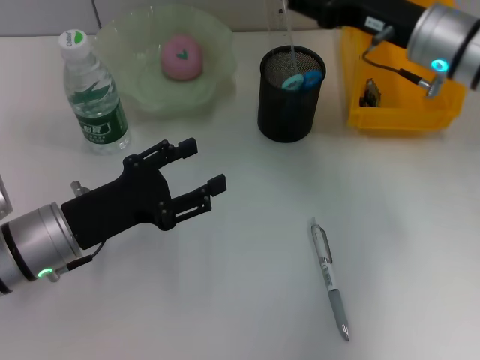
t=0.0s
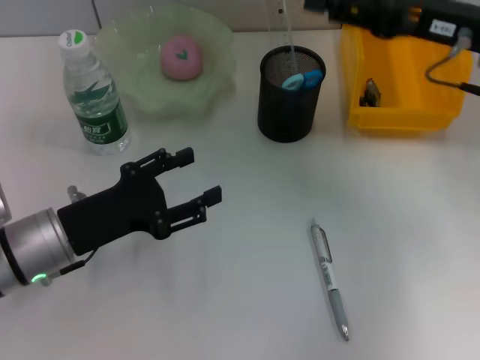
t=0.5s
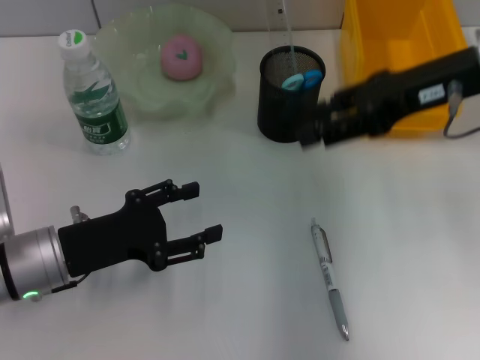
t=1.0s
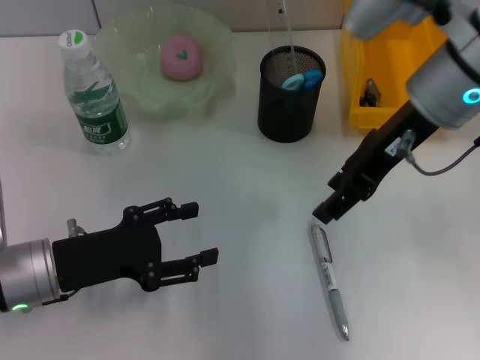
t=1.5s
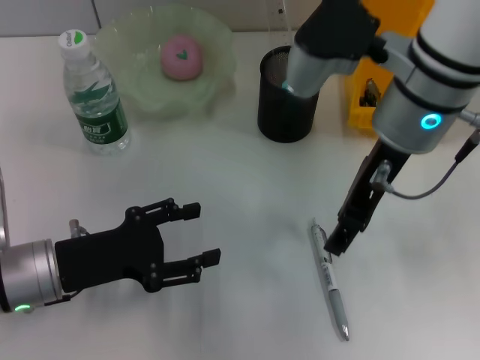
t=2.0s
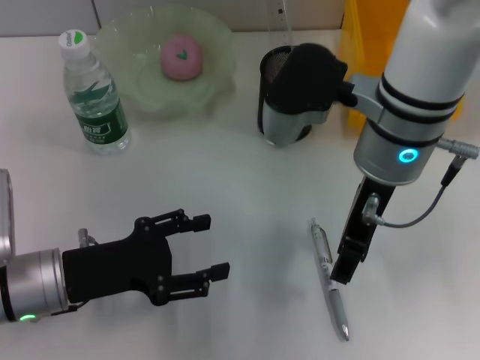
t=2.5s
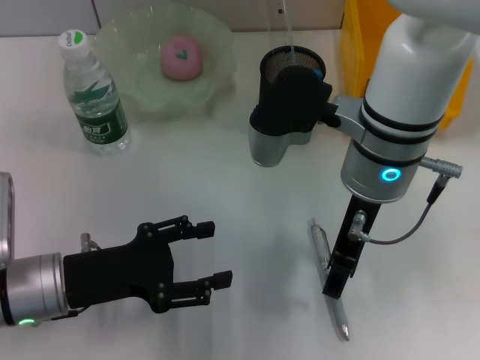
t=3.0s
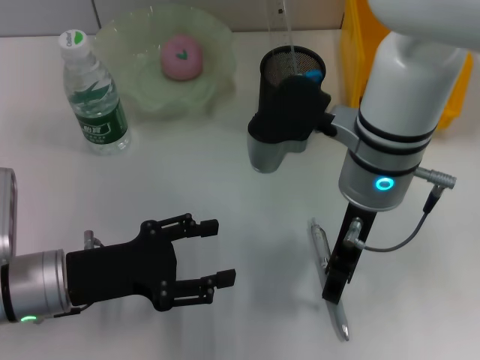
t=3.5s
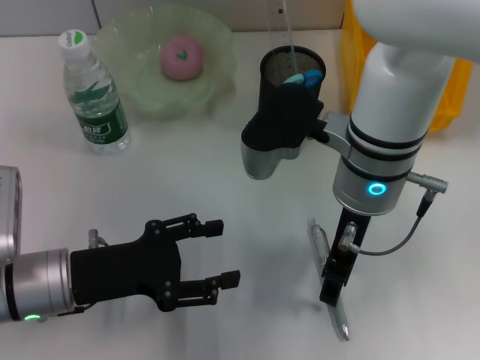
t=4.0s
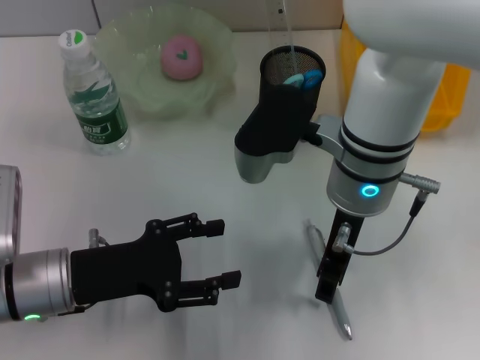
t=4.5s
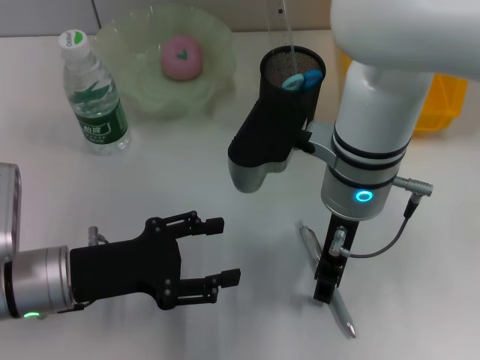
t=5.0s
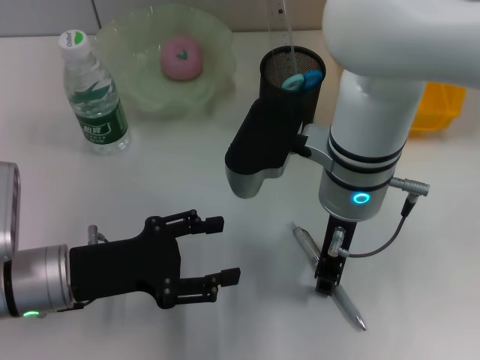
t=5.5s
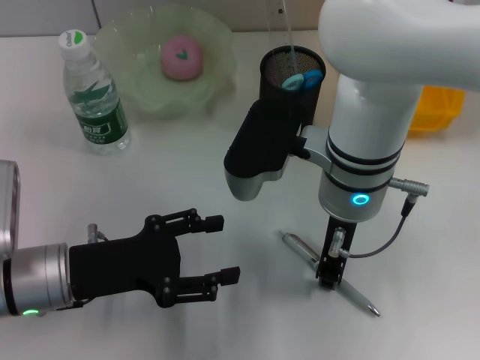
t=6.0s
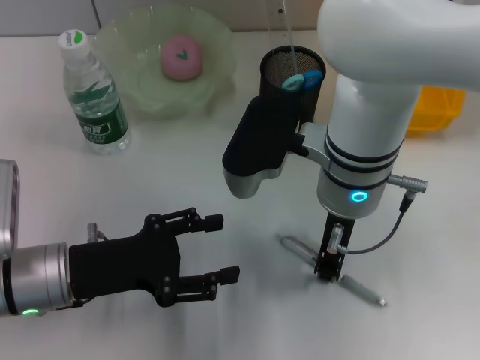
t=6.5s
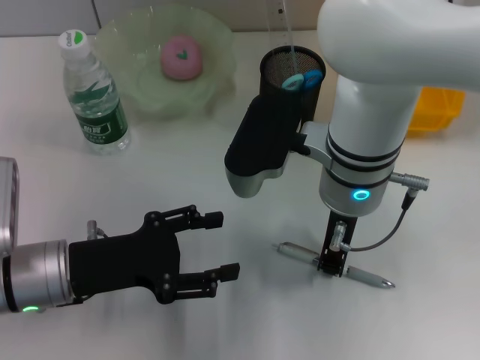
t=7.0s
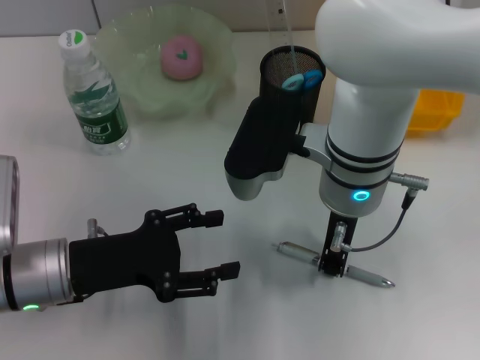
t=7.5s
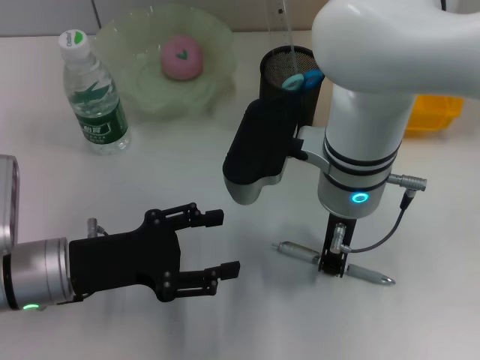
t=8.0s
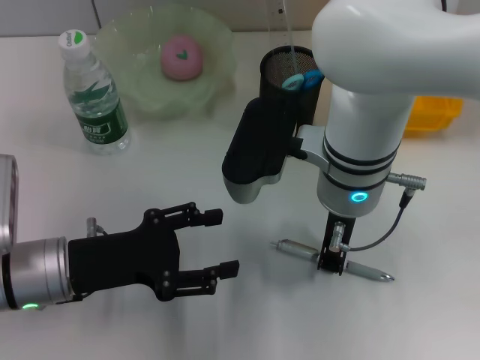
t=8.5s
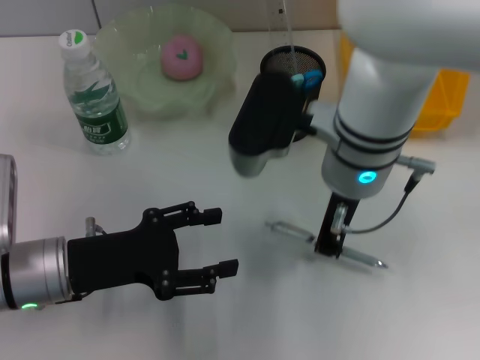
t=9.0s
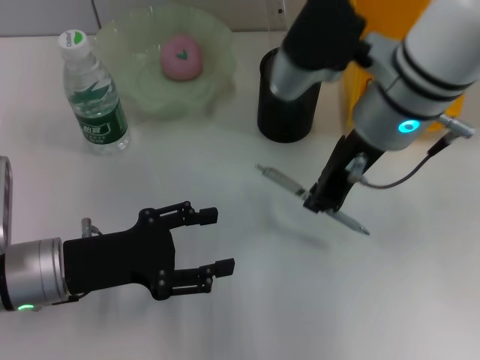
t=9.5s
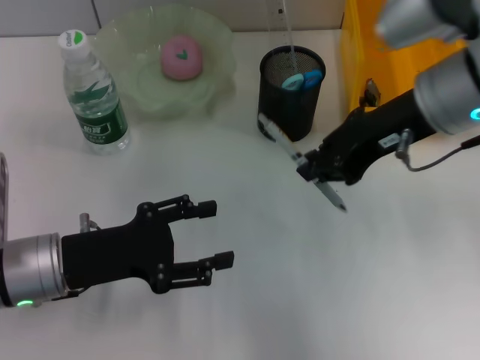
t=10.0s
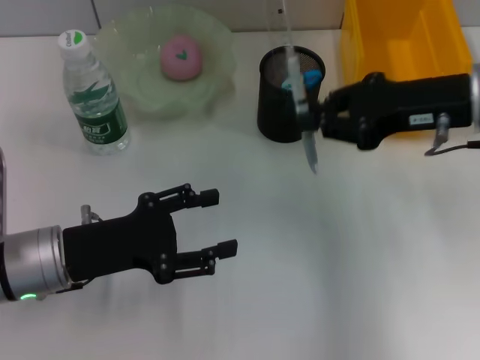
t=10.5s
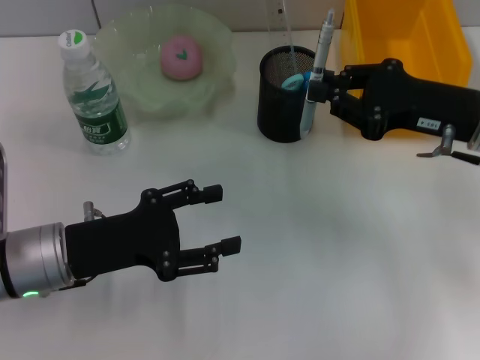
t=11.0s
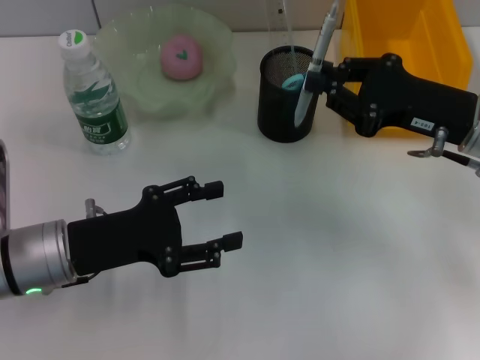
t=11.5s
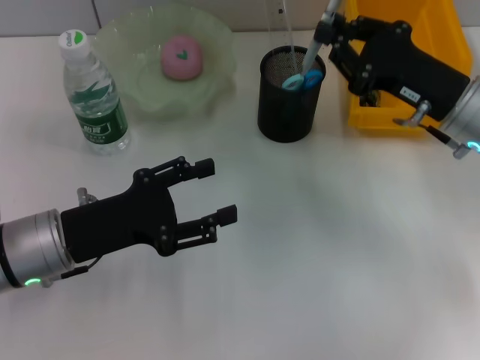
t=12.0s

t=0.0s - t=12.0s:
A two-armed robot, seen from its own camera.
Step, t=0.5s - t=6.5s: Grab the gray spring-action pen with the right hand.
t=0.0s - t=2.0s: The right gripper heads to the left, backward and upward, covering some 10 cm.
t=2.0s - t=4.0s: The right gripper heads downward, covering roughly 5 cm.
t=6.0s - t=8.0s: Neither gripper changes place.
t=8.0s - t=10.0s: The right gripper moves to the right and upward, some 15 cm.
t=10.0s - t=12.0s: The right gripper is displaced downward and to the right by some 10 cm.

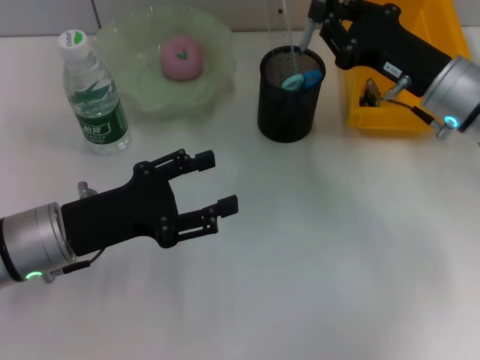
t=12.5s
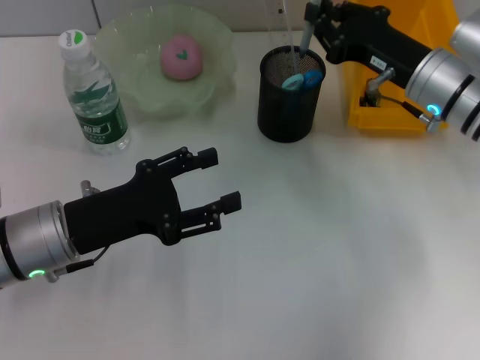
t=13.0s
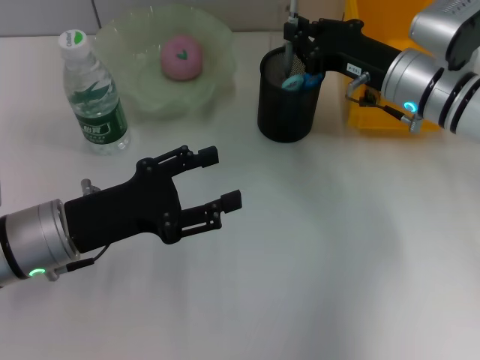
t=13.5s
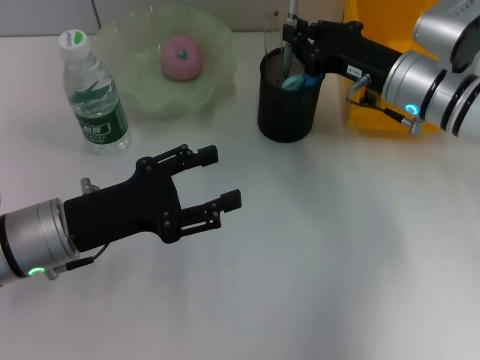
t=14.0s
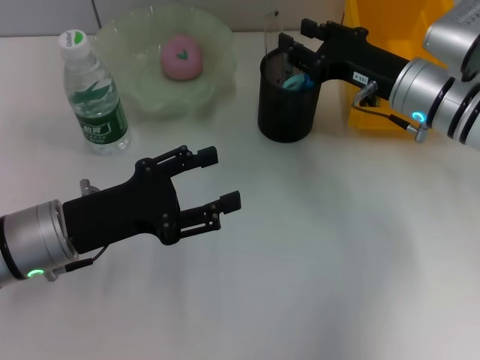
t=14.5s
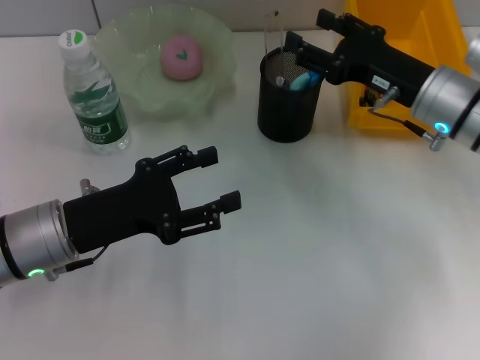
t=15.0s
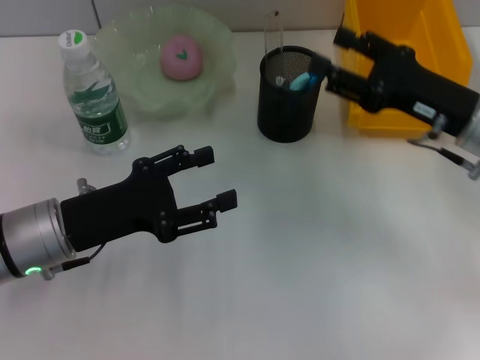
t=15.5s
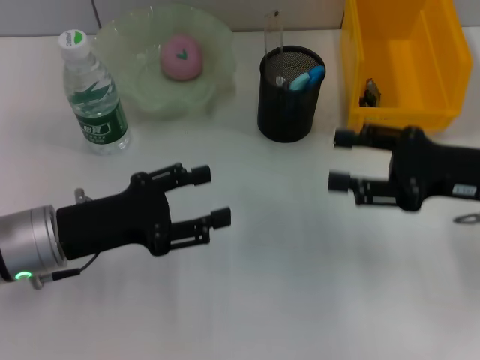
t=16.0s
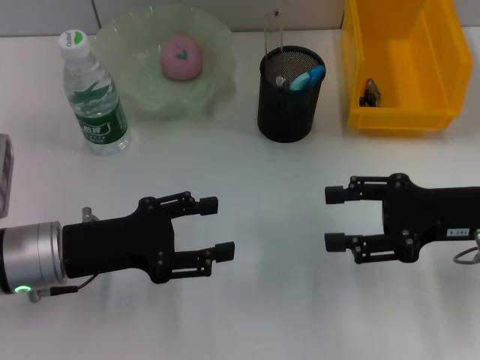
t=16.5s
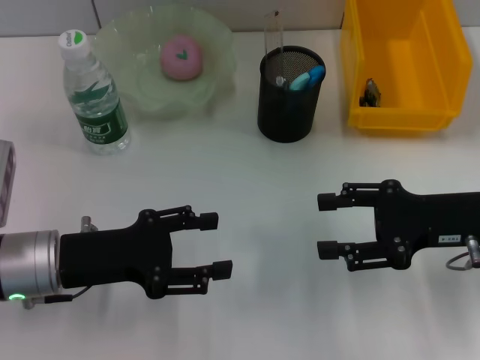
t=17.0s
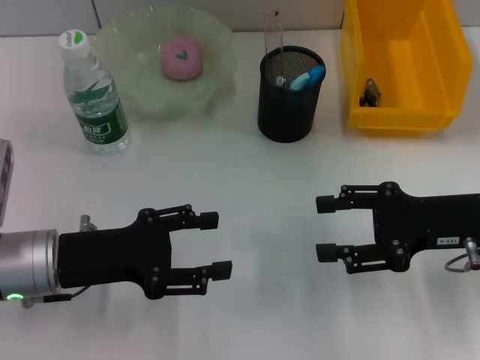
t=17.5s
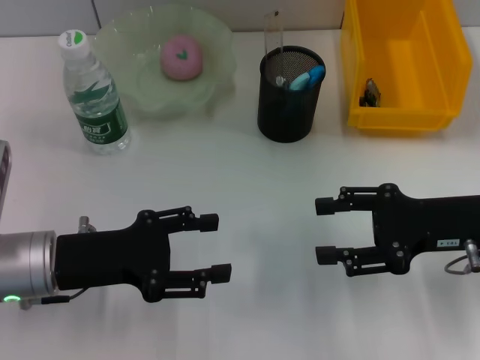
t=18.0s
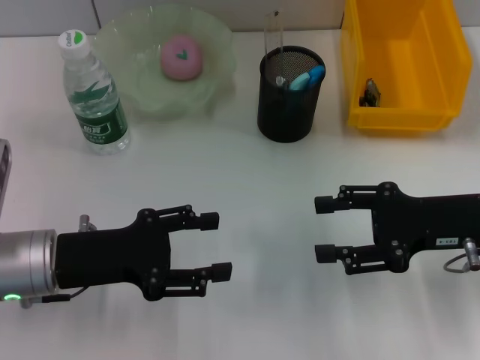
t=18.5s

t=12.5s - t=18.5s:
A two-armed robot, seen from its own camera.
Step, t=12.5s - t=15.0s: Place the gray spring-action pen into the pen holder with the right hand.
t=12.5s - t=14.5s: The grippers stay close to where they were, moving slightly.
t=14.5s - t=16.5s: The right gripper moves backward and to the right, roughly 15 cm, and opens up.
t=16.5s - t=18.5s: Both grippers stay put.

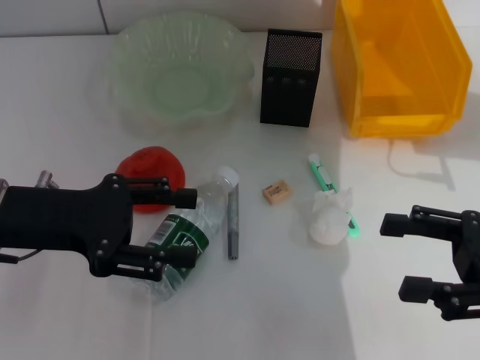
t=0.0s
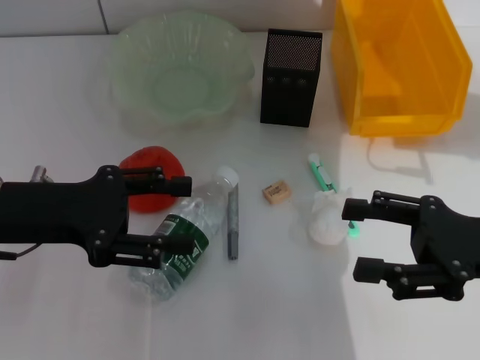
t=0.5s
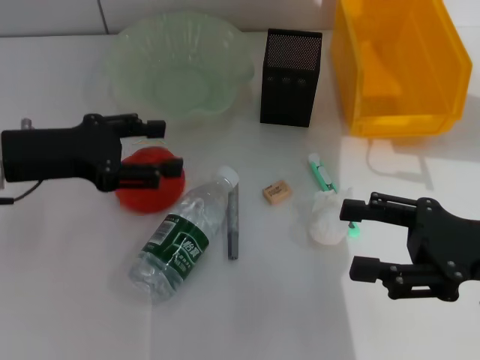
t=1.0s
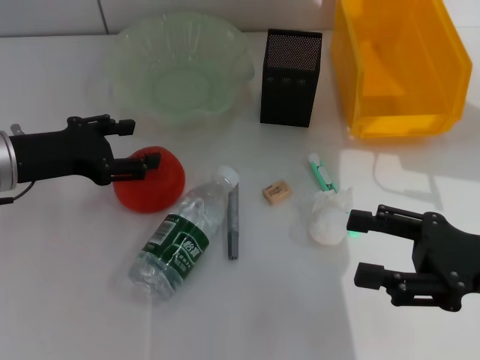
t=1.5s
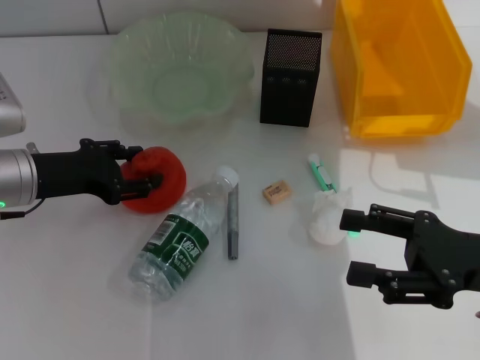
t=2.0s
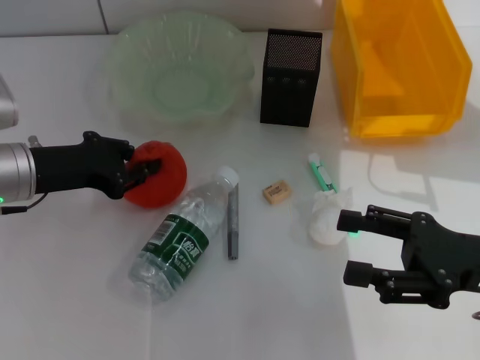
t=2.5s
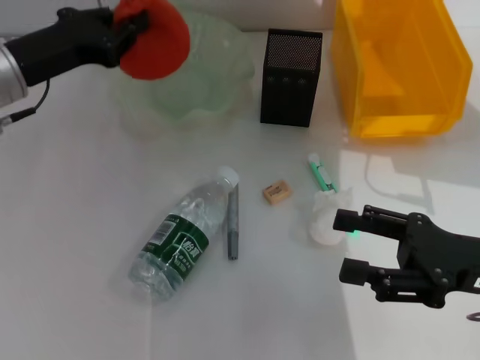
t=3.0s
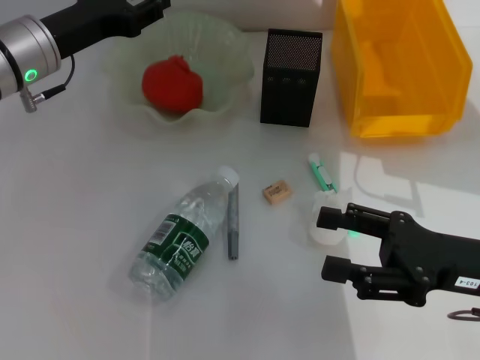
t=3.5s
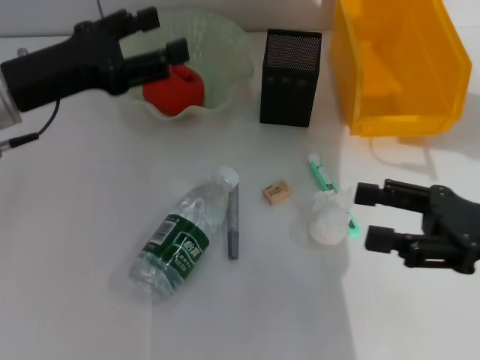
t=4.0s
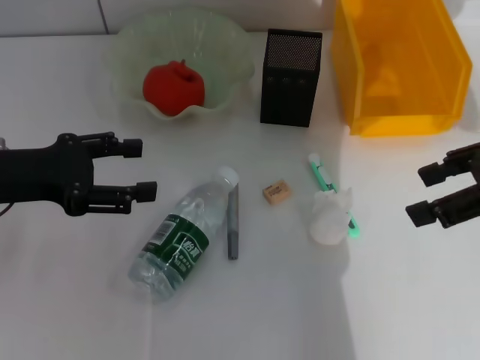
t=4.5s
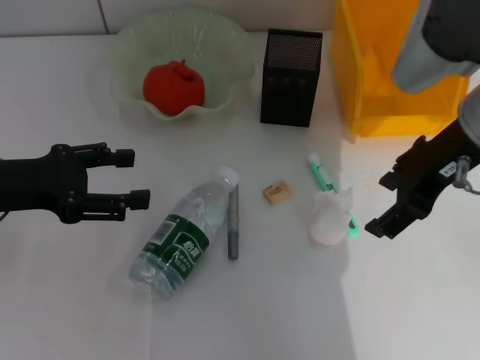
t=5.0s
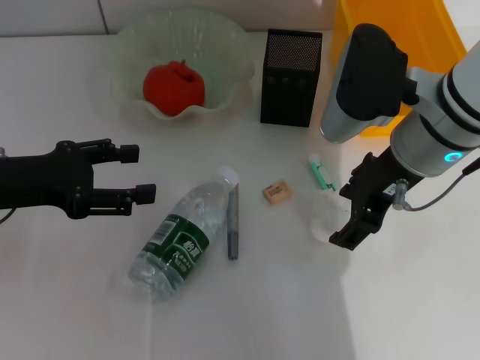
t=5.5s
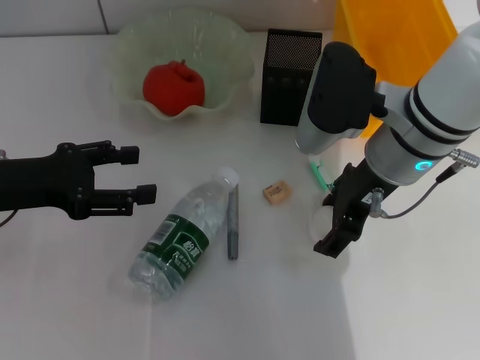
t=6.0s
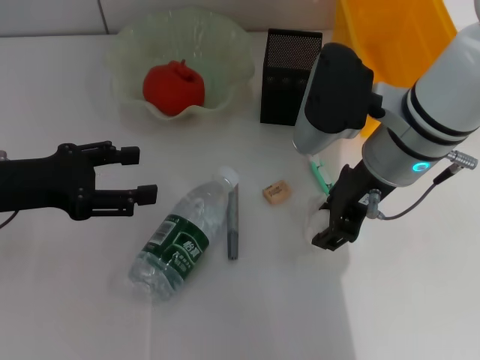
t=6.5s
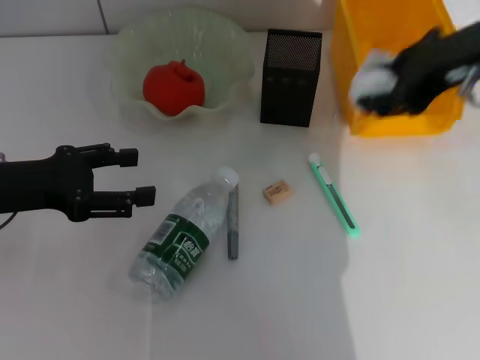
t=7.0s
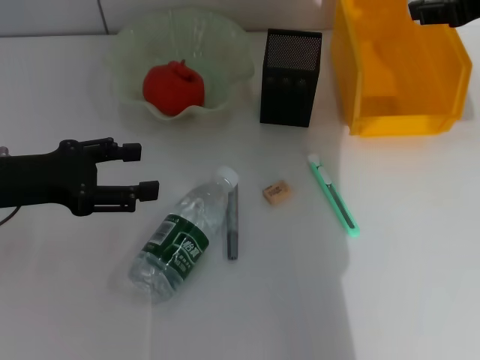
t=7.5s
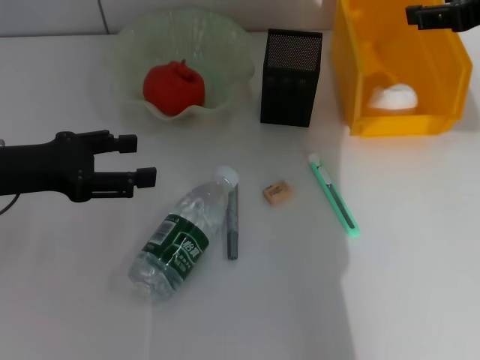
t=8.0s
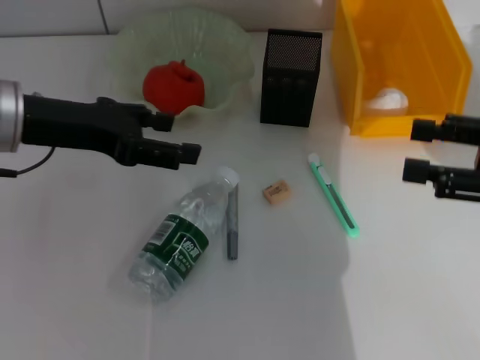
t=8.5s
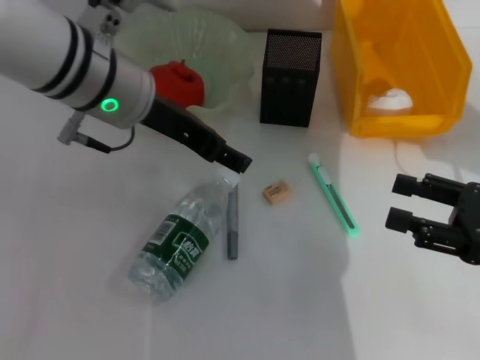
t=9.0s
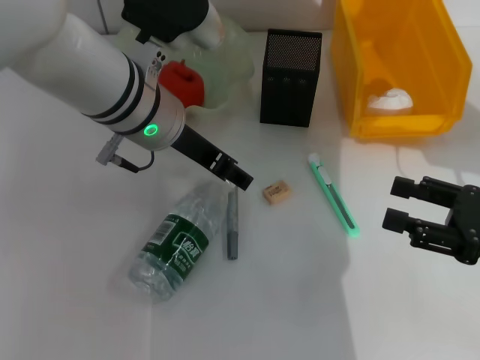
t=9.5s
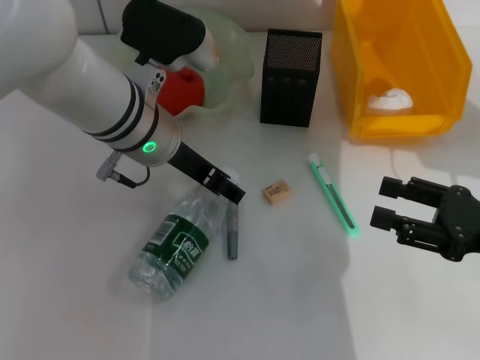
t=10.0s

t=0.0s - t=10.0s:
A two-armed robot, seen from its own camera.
Step, t=0.0s - t=2.0s: Grab the orange with the left hand.
Step, t=2.5s - t=3.5s: Place the orange into the fruit bowl with the left hand.
Step, t=4.0s - t=6.0s: Grab the paper ball with the right hand.
Step, t=6.5s - t=7.5s: Place the paper ball into the trash can with the right hand.
t=0.0s - t=2.0s: The left gripper goes some 5 cm forward.
t=2.0s - t=4.0s: The left gripper is displaced upward by roughly 5 cm, moves approximately 10 cm forward and comes back, and closes, then opens again.
t=4.0s - t=6.0s: The left gripper heads backward, covering approximately 5 cm, while the right gripper is displaced to the left and forward by about 20 cm.
t=6.0s - t=8.0s: The right gripper heads to the right and upward, covering some 15 cm.
t=8.0s - t=10.0s: The left gripper is displaced to the right by roughly 20 cm, while the right gripper shifts roughly 20 cm downward and backward.
